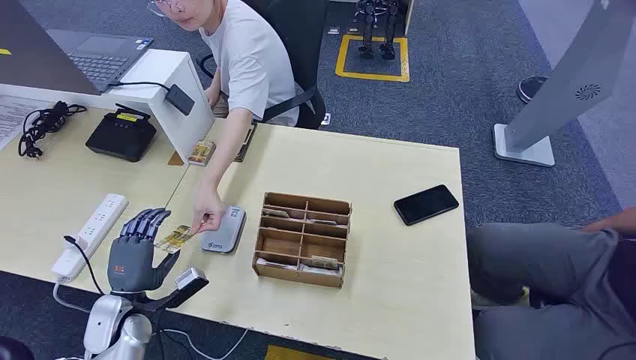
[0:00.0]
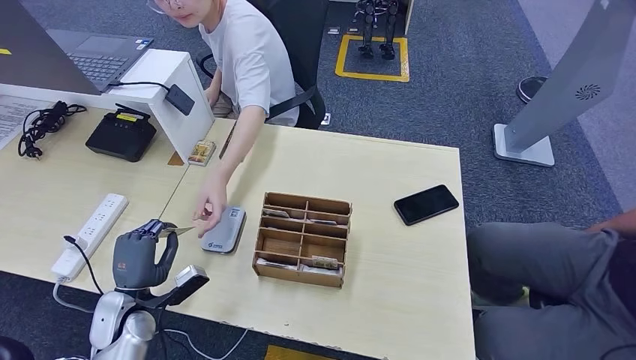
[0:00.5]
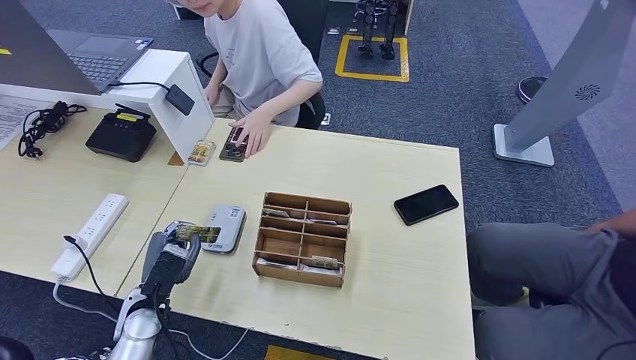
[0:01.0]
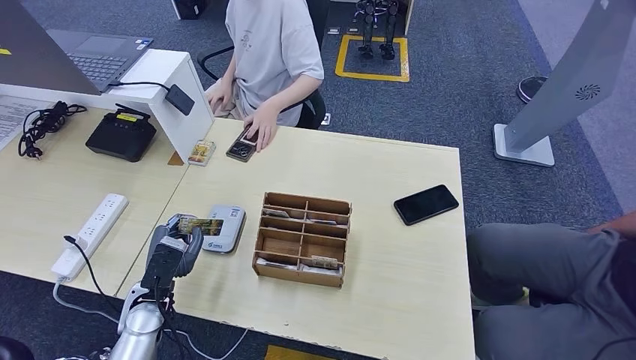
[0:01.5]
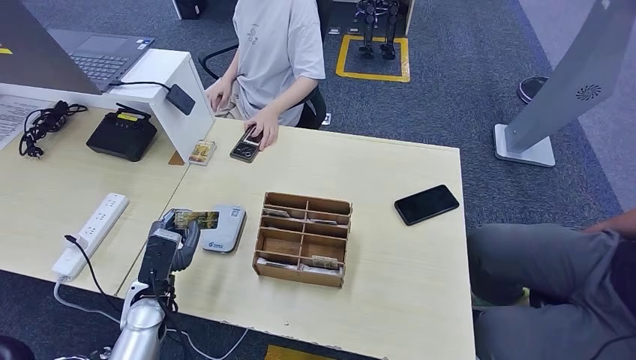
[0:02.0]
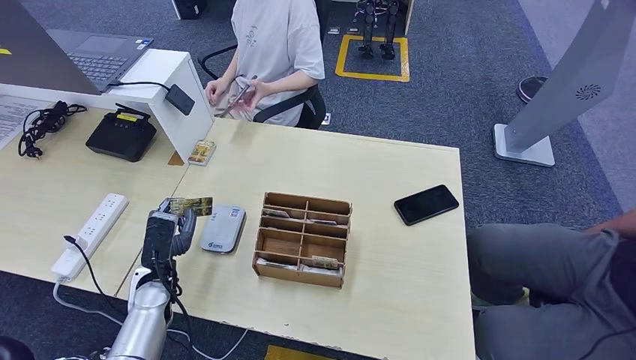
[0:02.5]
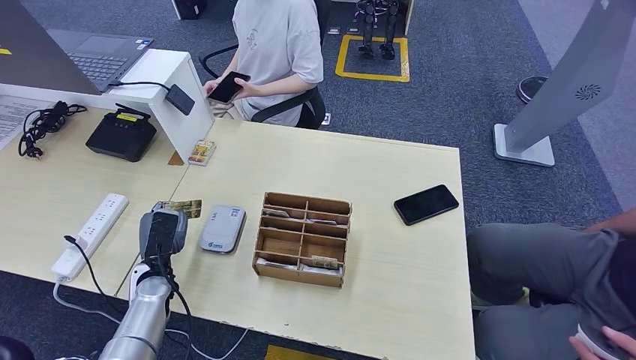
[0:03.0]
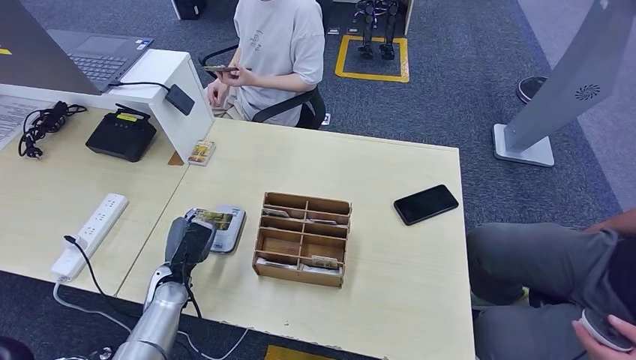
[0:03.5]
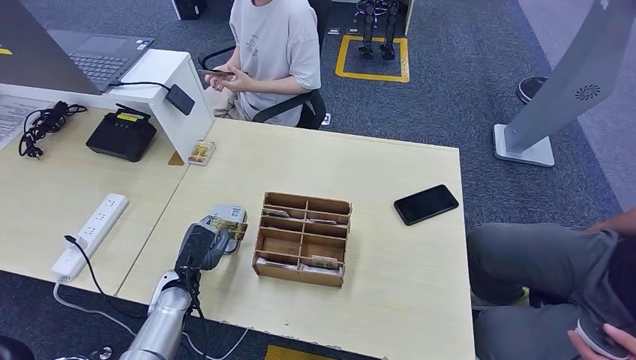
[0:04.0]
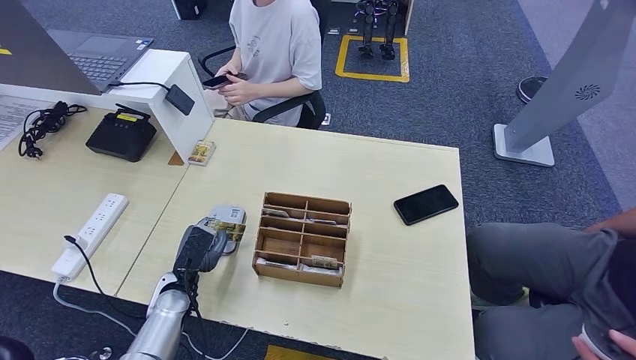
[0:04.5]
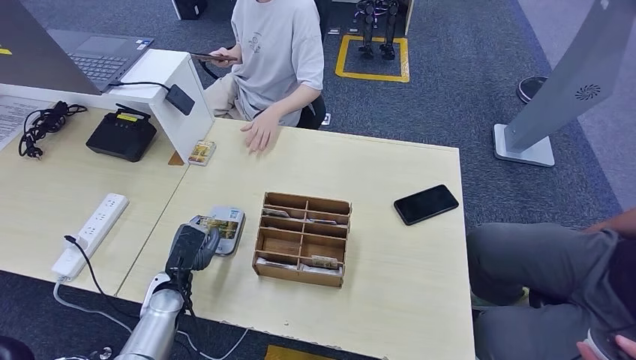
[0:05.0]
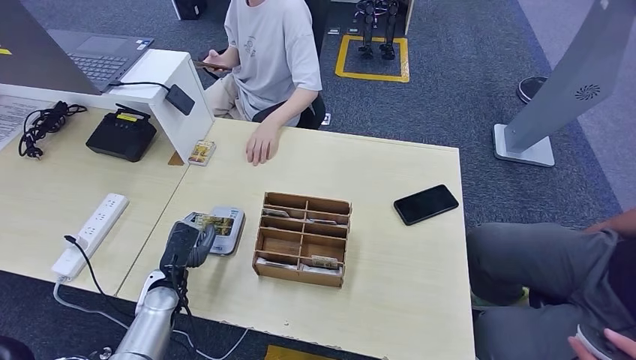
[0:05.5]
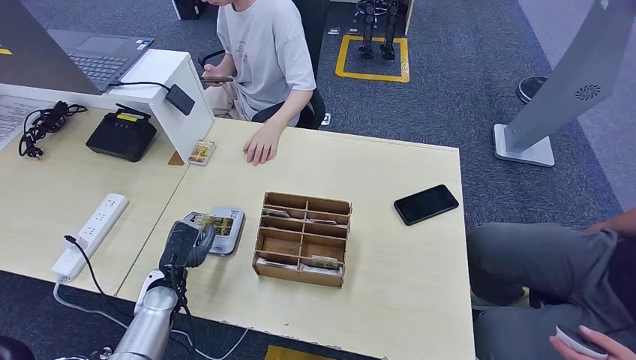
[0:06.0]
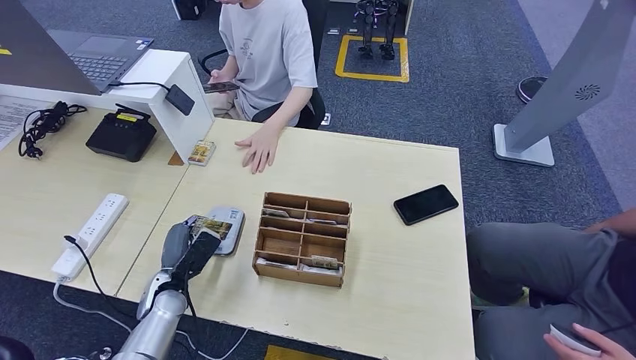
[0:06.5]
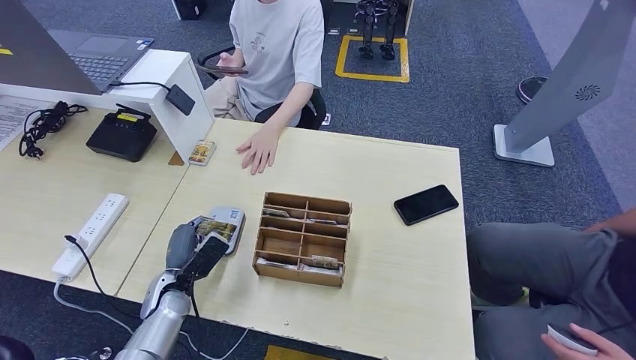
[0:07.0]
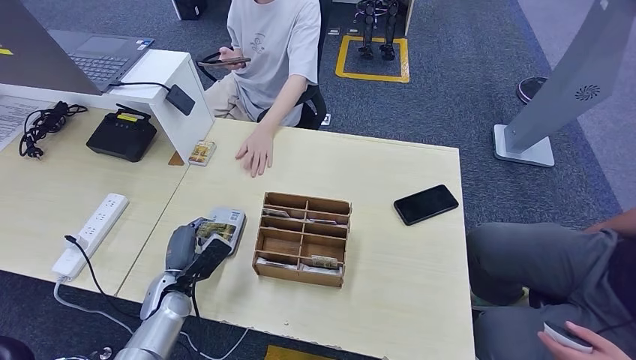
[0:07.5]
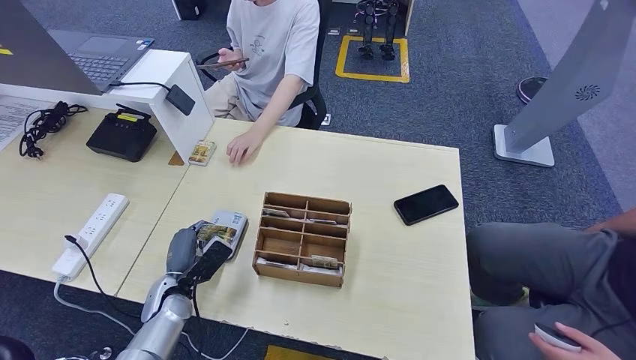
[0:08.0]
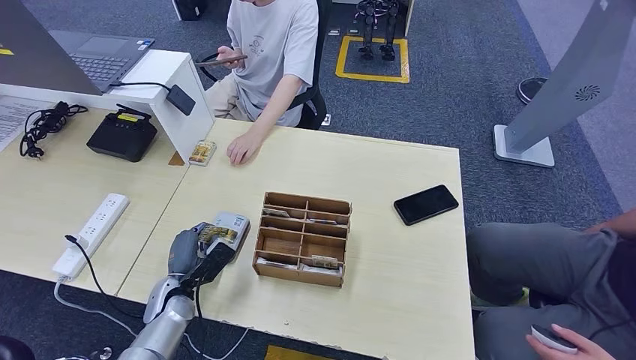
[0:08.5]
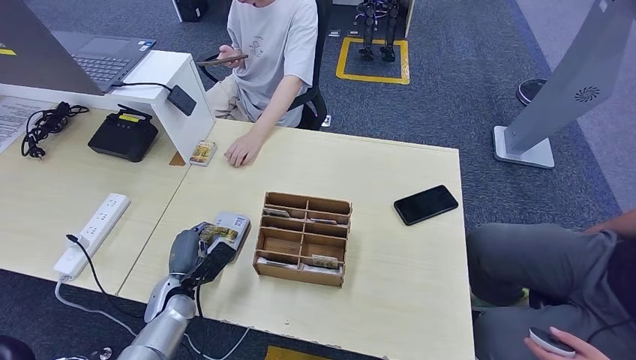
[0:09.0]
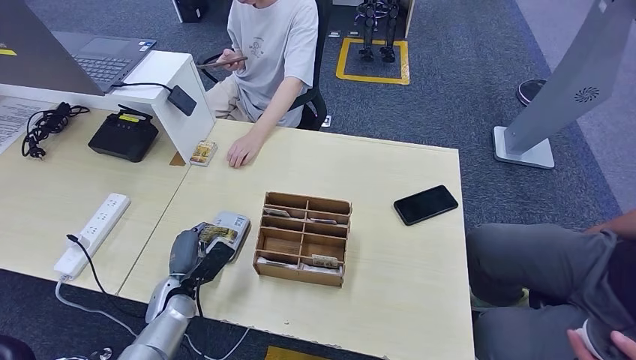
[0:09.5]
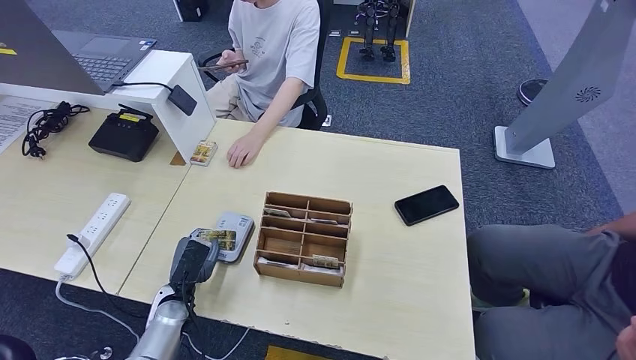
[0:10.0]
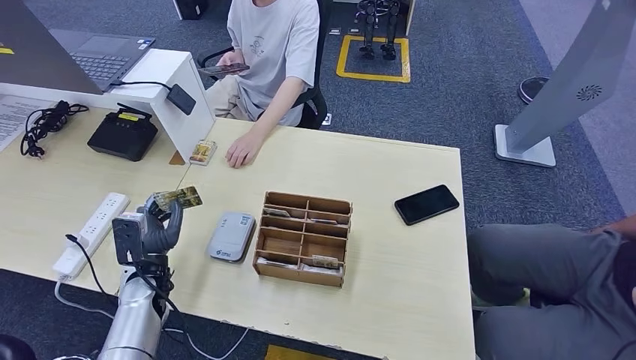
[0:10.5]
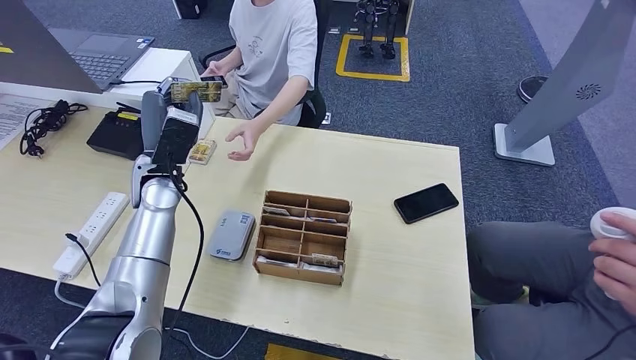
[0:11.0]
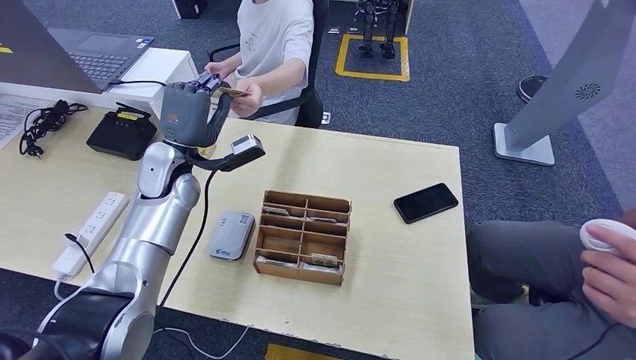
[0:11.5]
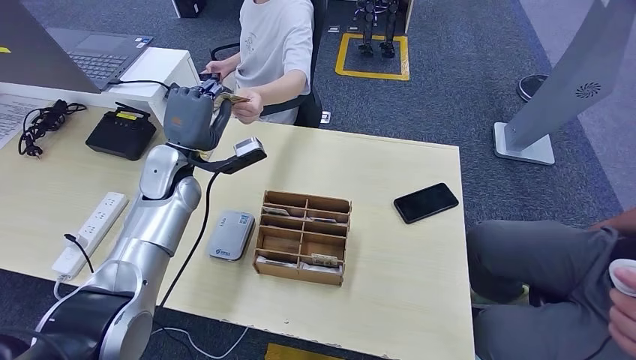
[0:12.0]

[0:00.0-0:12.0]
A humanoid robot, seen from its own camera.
Step, 0:00.0 to 0:01.0: Take the ID card from the person's hand.
Step, 0:01.5 to 0:06.0: Place the ID card on the card reader.
Step, 0:06.5 to 0:12.0: Hand the ID card to the person.
0:02.0 to 0:04.0: The left hand changes place by roughly 5 cm.
0:04.0 to 0:06.0: The hands move only a little.

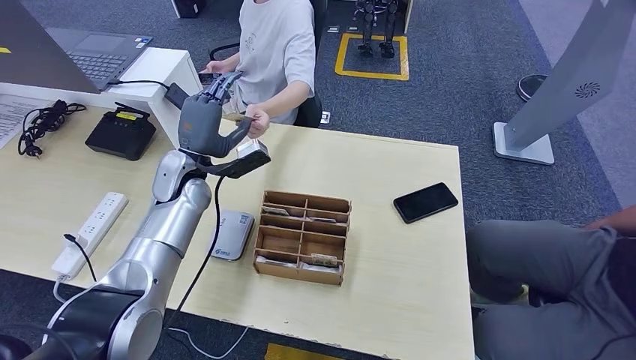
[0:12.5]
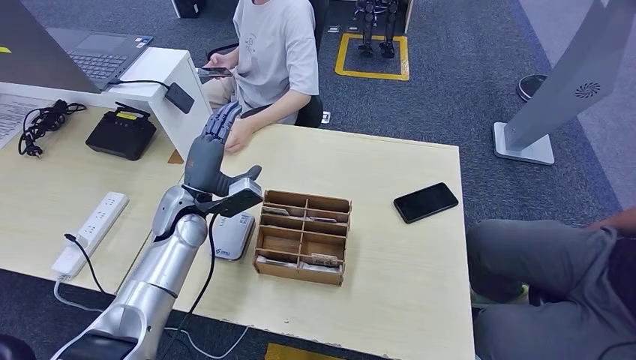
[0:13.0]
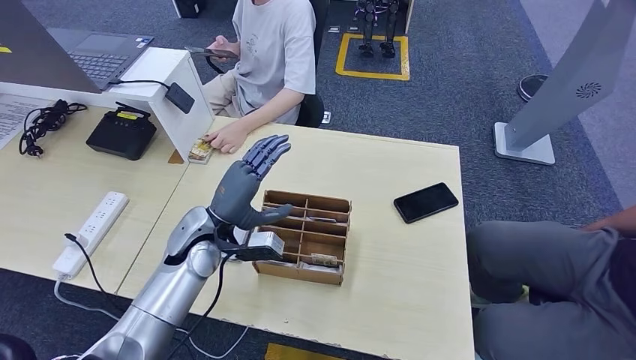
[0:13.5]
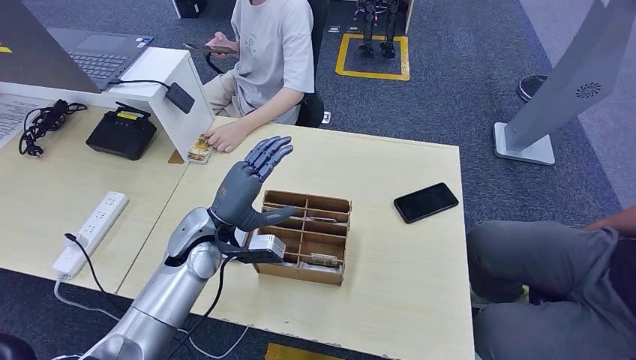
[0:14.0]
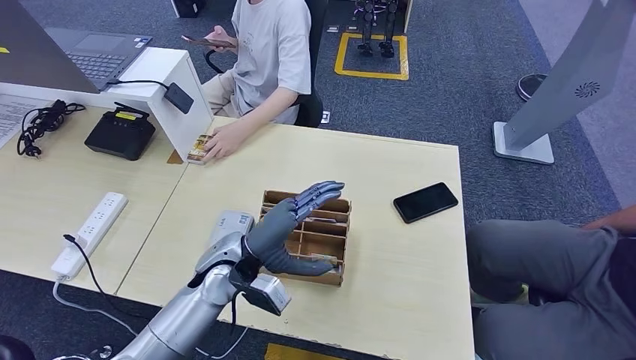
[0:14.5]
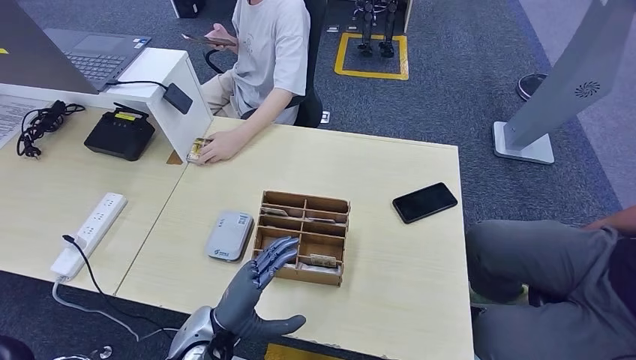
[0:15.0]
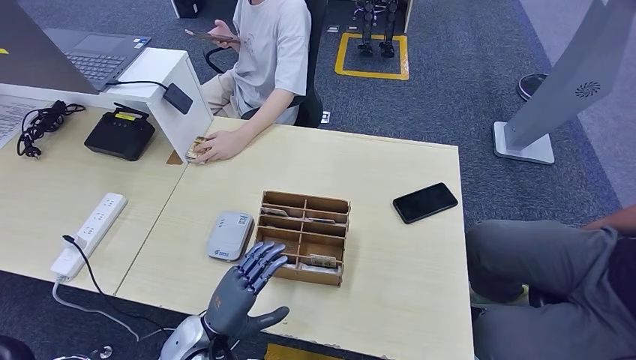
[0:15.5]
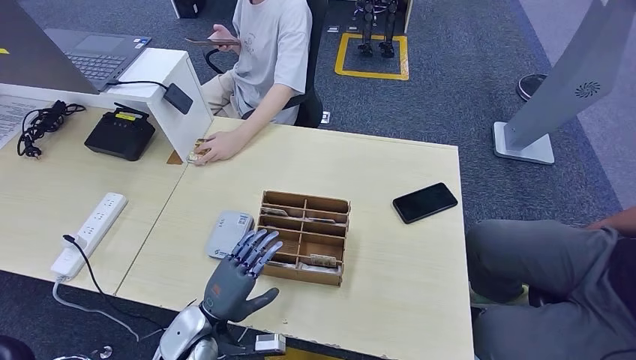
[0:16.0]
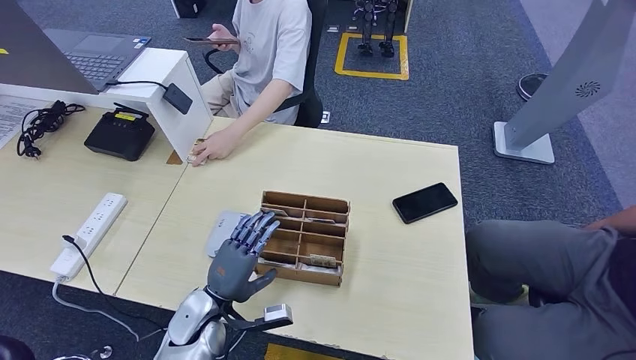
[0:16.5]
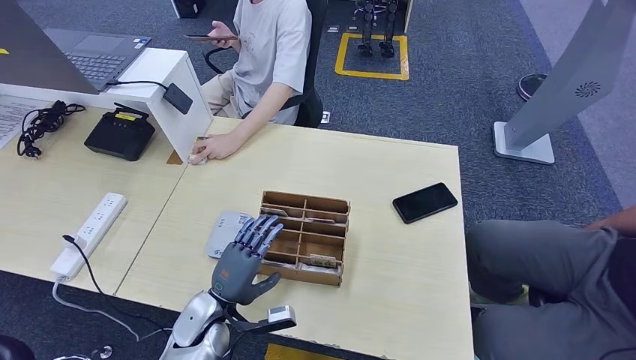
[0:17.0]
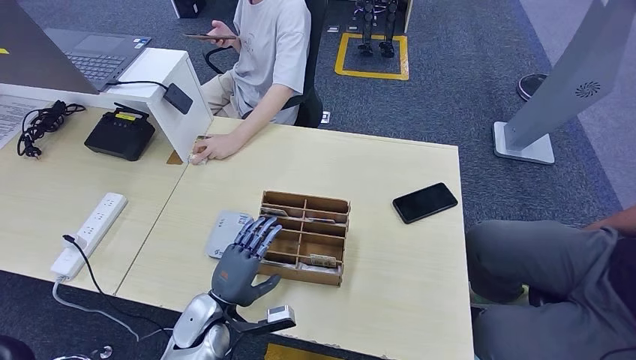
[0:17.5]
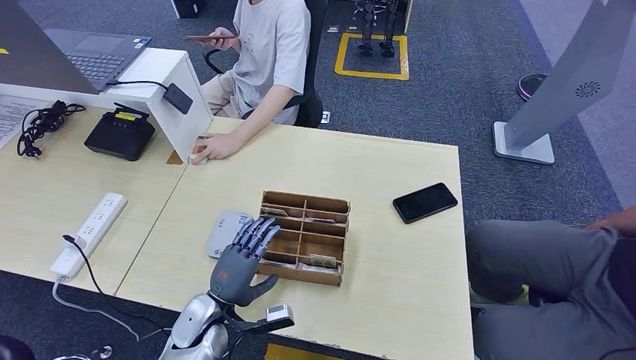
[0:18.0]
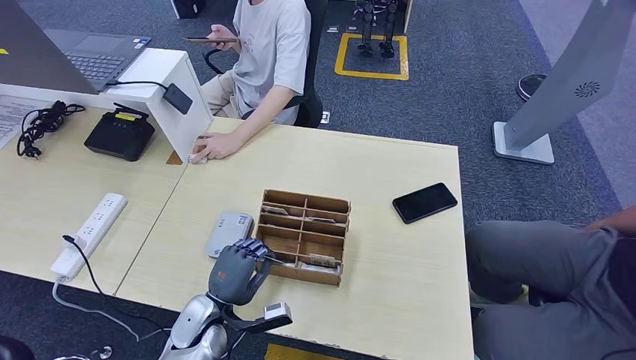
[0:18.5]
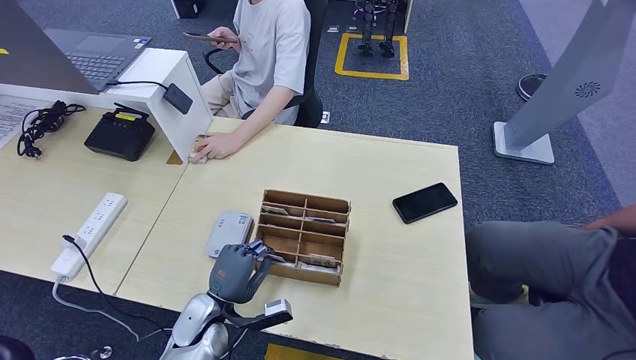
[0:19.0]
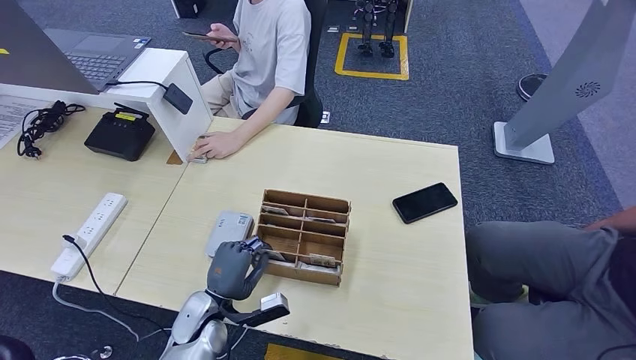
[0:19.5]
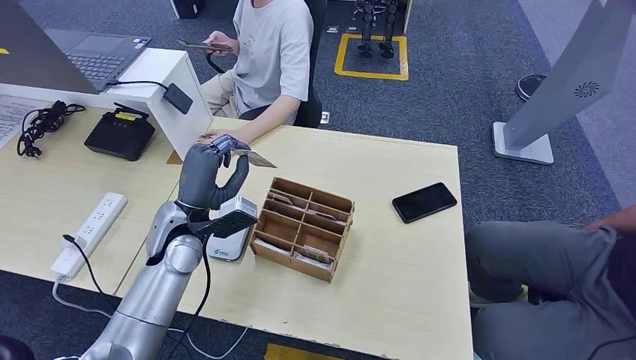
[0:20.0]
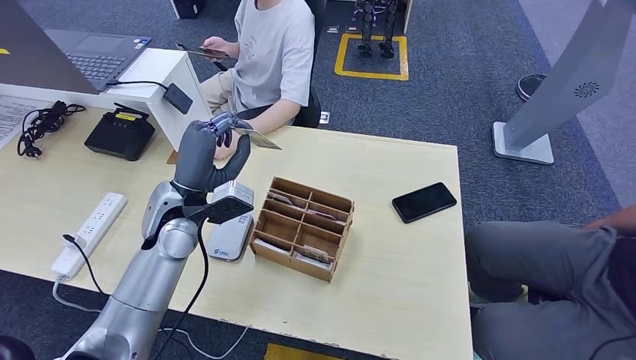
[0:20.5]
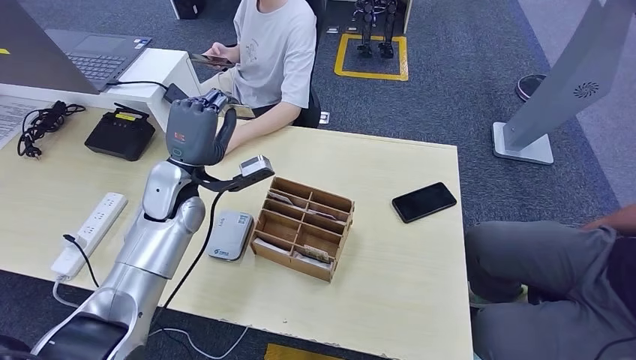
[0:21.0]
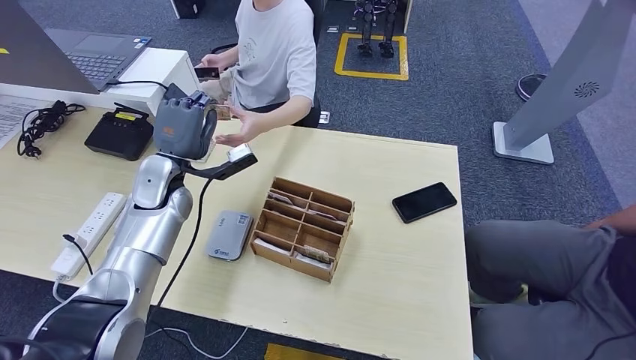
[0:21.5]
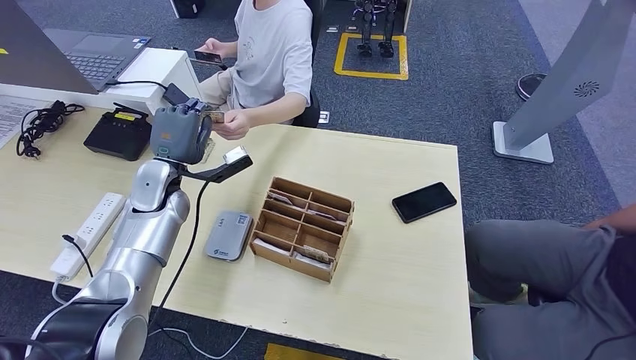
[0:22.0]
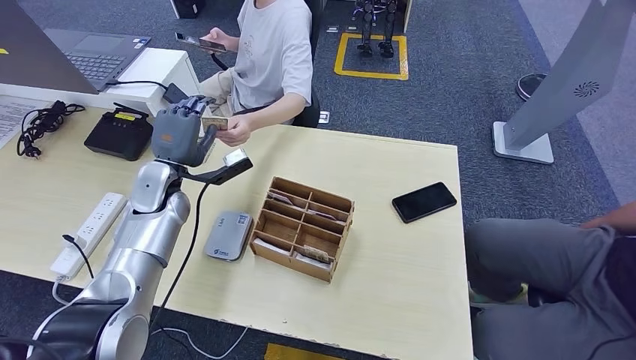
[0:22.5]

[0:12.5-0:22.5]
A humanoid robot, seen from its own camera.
Step, 0:12.5 to 0:18.5: Pick up the room key from the key card box.
Step, 0:19.0 to 0:22.5: Hand the room key to the person.
0:12.5 to 0:14.5: The left hand heads backward, to the right and downward, covering approximately 20 cm.
0:14.5 to 0:16.5: The left hand goes approximately 15 cm downward, backward and to the left.
0:16.5 to 0:18.5: The hands make only small movements.
0:18.5 to 0:20.5: The left hand shifts some 20 cm upward and forward.
0:20.5 to 0:22.5: The left hand is displaced to the left and forward by about 10 cm.
